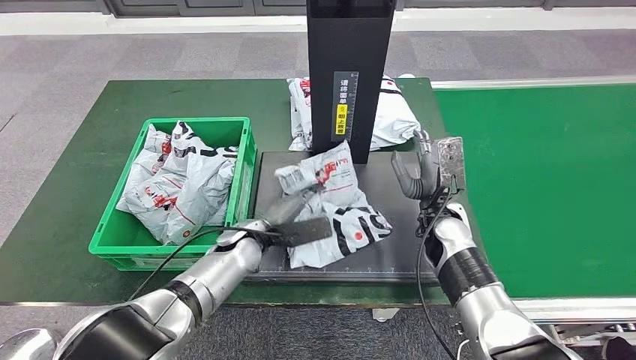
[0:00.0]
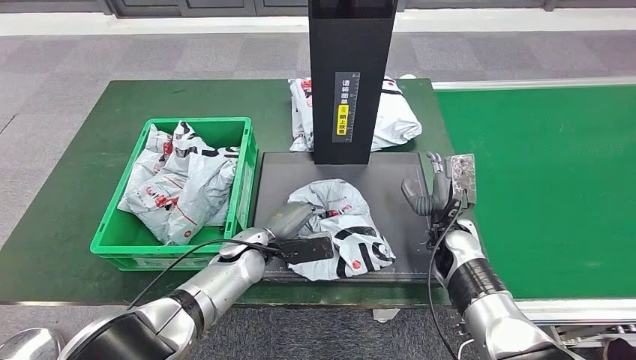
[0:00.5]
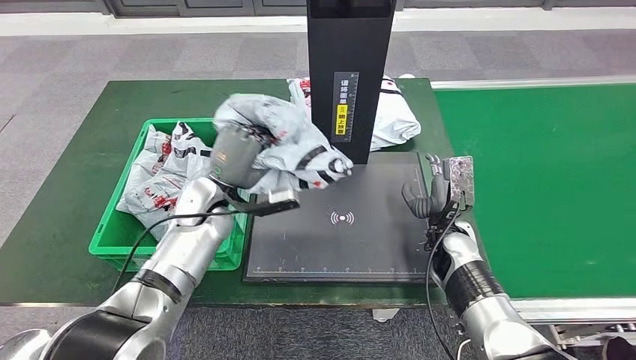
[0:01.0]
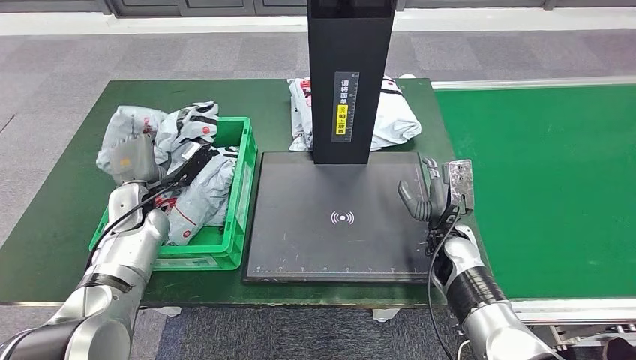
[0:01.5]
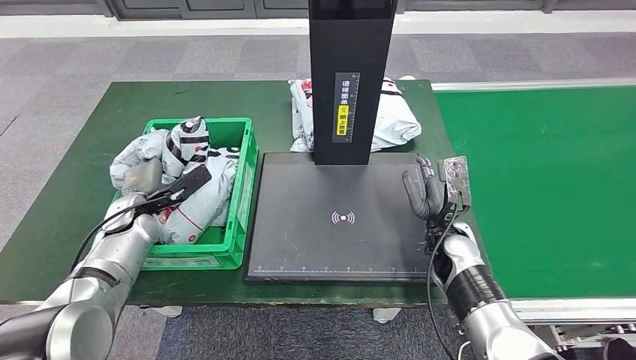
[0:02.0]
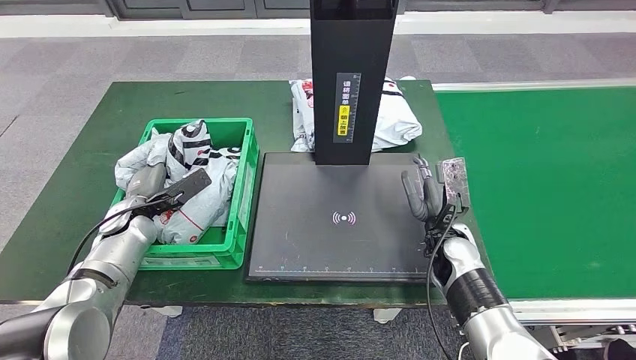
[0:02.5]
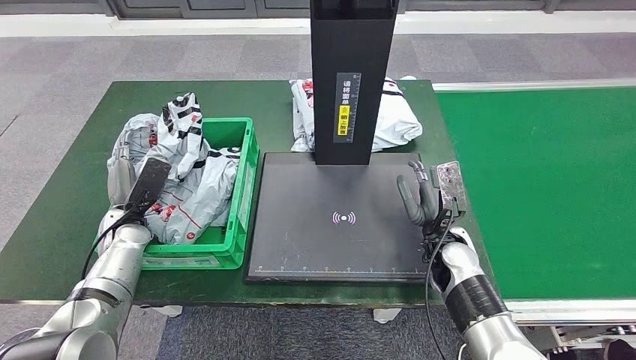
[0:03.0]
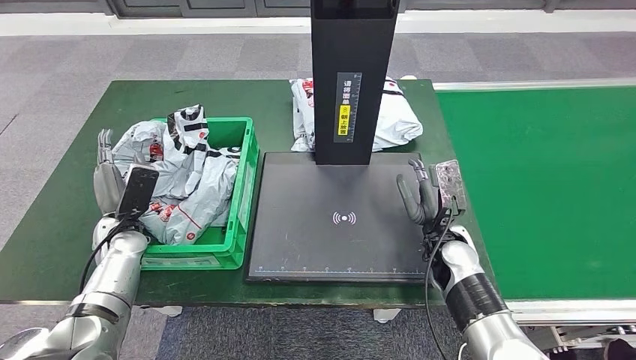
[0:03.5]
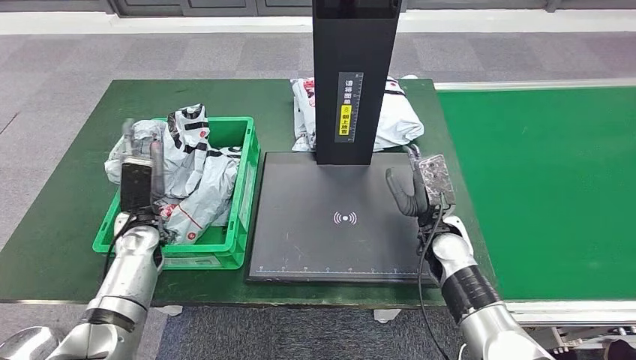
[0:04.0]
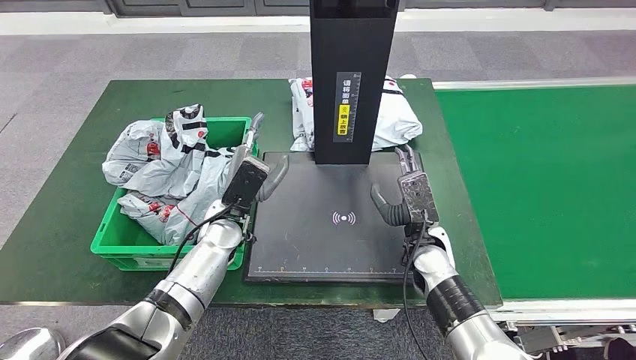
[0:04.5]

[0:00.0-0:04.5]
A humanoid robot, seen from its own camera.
Step, 0:00.0 to 0:01.5: Pick up the parcel from the inbound machine.
Step, 0:02.0 to 0:04.5: Place the parcel into the delivery box.

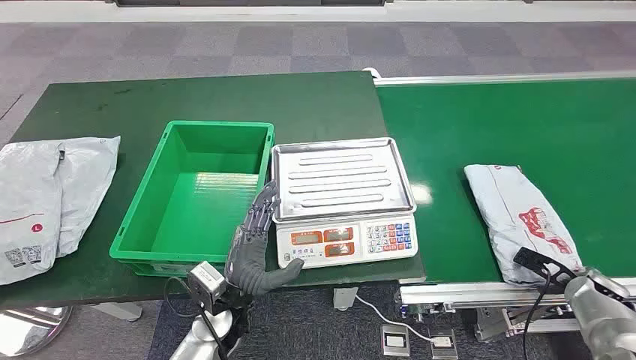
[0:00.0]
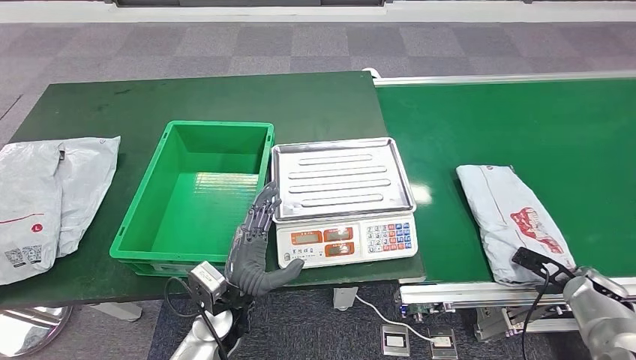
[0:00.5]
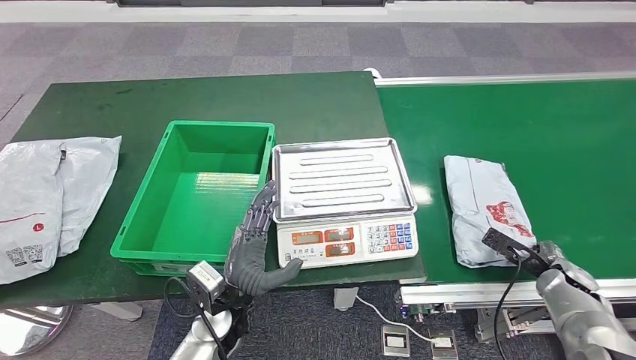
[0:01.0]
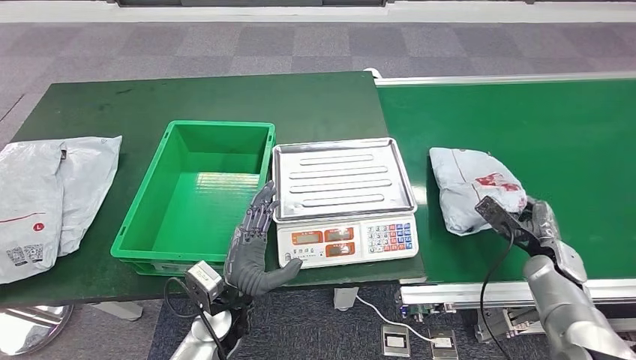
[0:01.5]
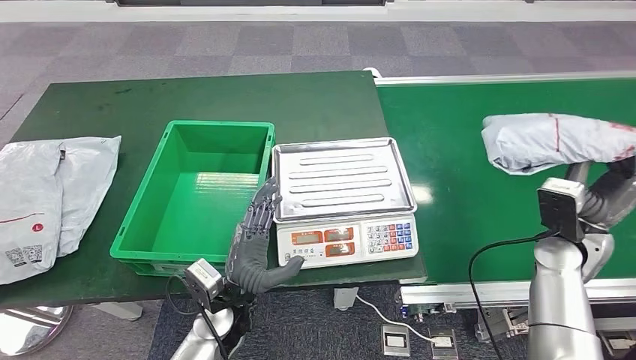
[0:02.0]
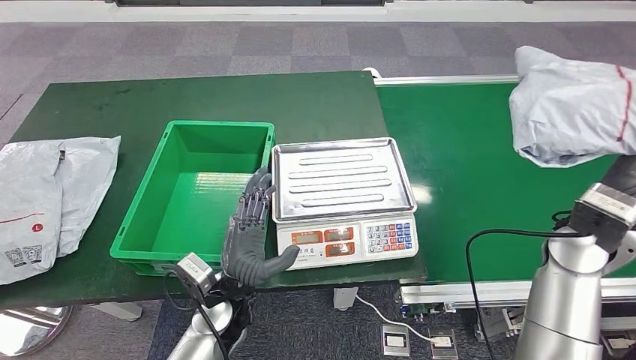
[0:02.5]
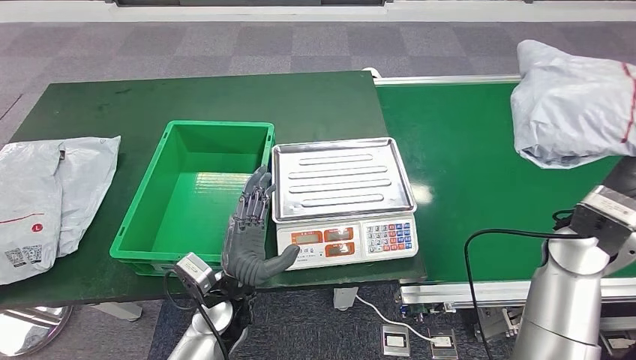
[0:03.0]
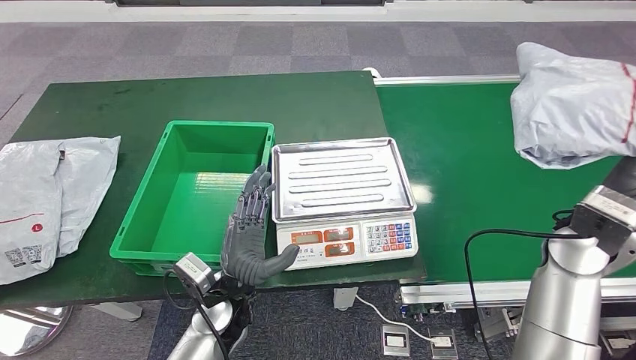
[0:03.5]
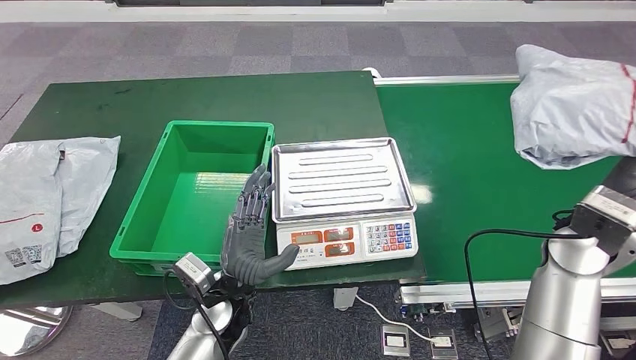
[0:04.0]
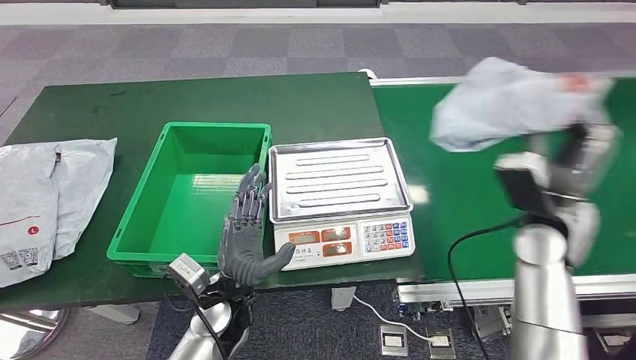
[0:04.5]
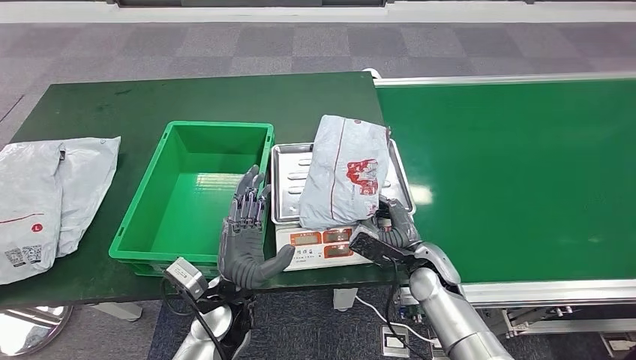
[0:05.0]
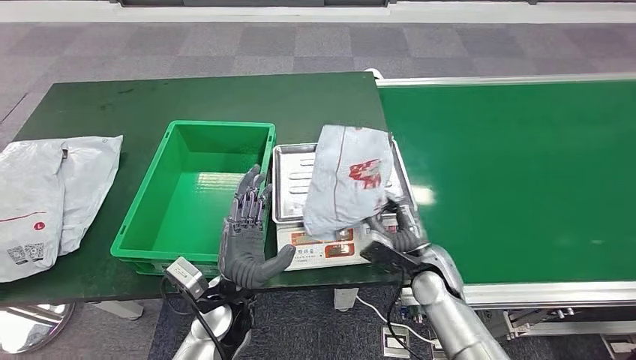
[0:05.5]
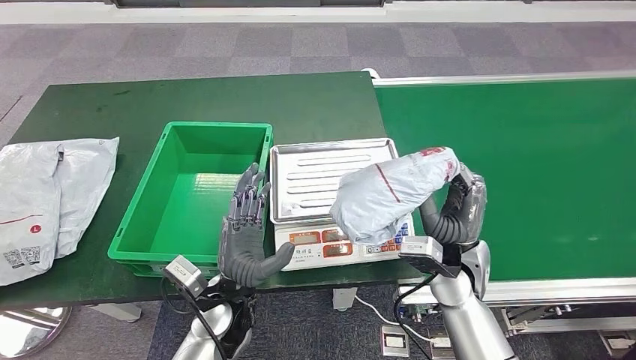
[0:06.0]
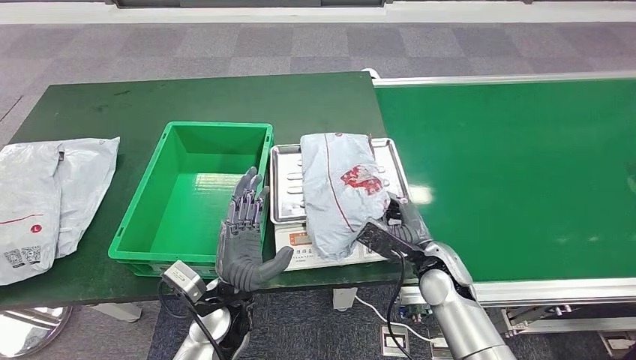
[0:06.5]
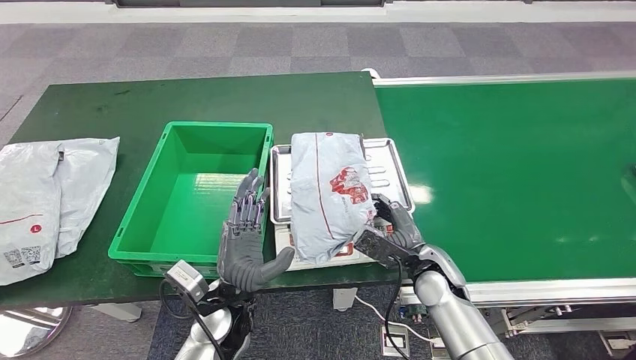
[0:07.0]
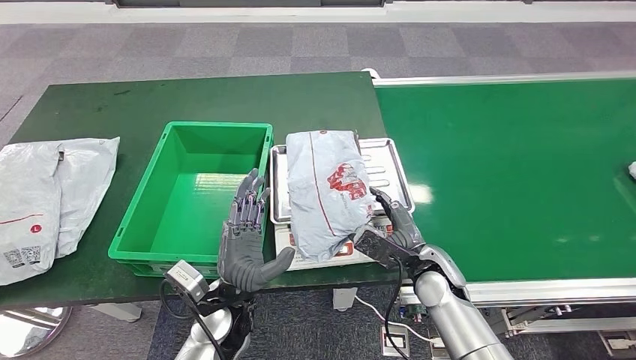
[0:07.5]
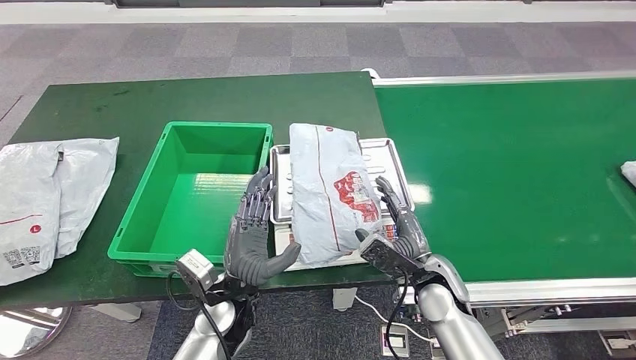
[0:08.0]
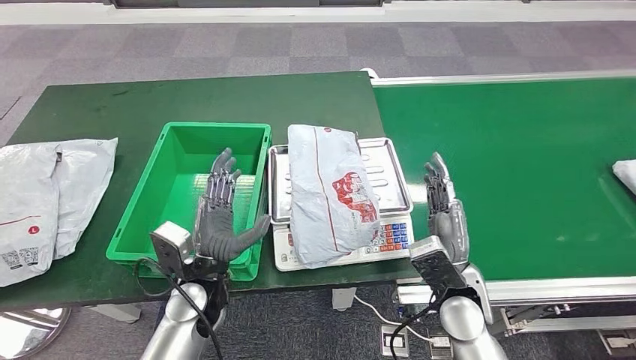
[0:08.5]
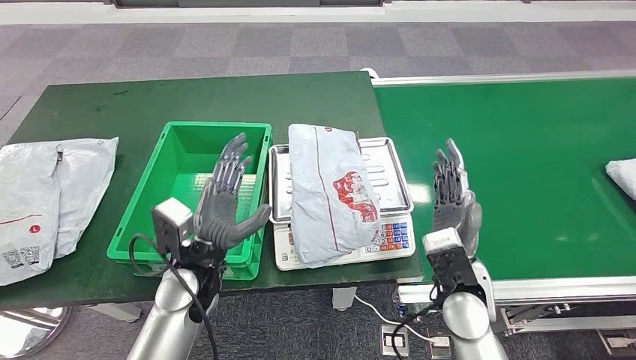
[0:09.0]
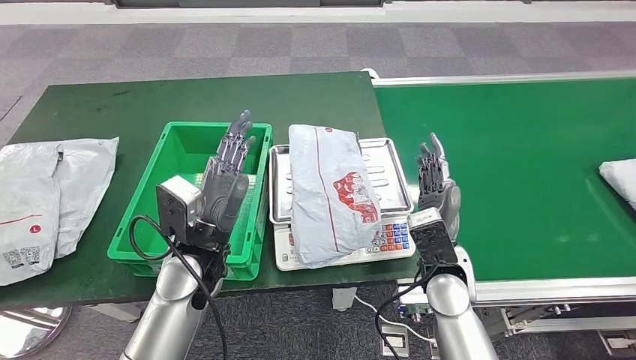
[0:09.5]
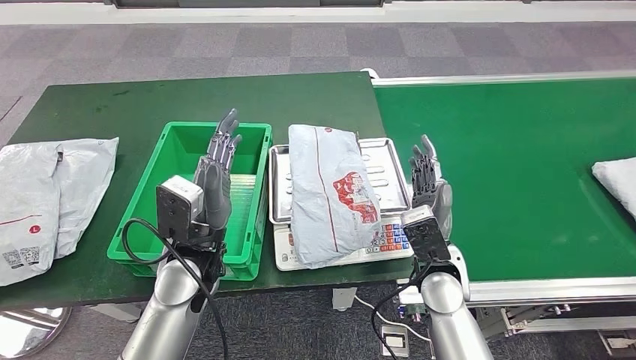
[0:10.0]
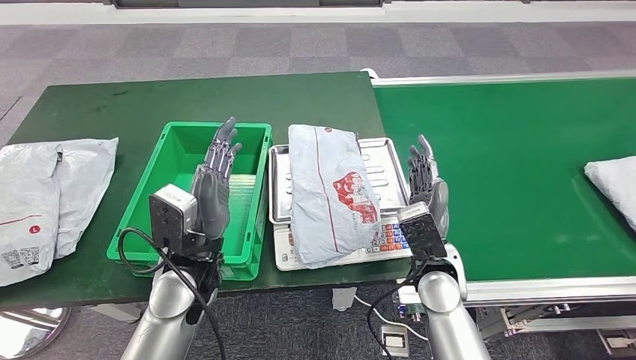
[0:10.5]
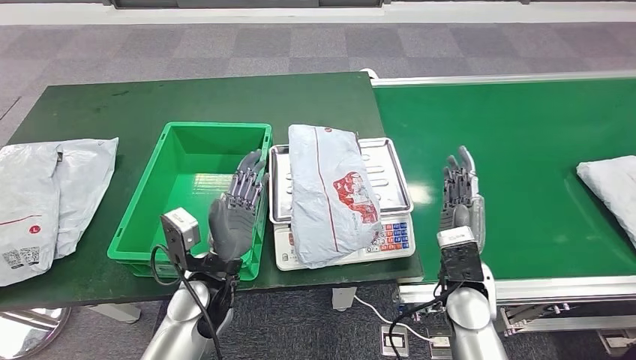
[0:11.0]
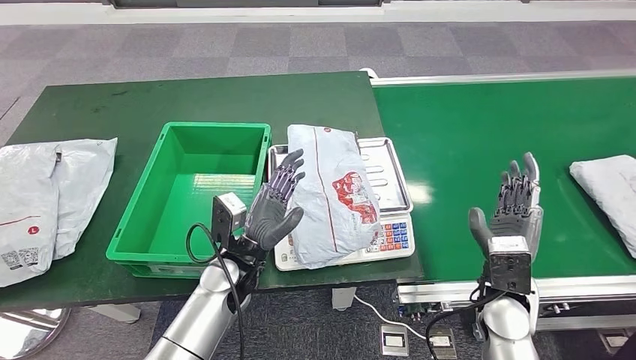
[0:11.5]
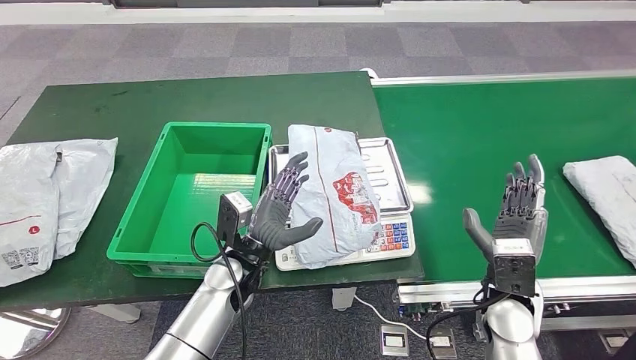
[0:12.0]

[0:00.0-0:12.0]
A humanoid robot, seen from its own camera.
Step, 0:00.0 to 0:02.0: Take the parcel off the conveyor belt.
Step, 0:02.5 to 0:06.5: Place the parcel onto the inbound machine.
0:02.0 to 0:04.0: The right hand travels upward by about 10 cm.
0:06.0 to 0:08.0: The right hand is displaced downward by some 5 cm.
0:08.0 to 0:10.0: The left hand goes about 10 cm upward, while the right hand shifts roughly 5 cm upward.

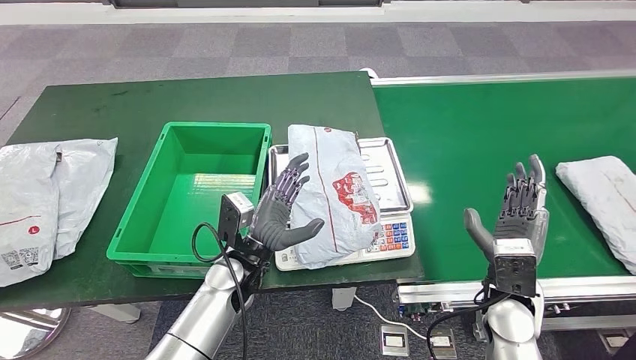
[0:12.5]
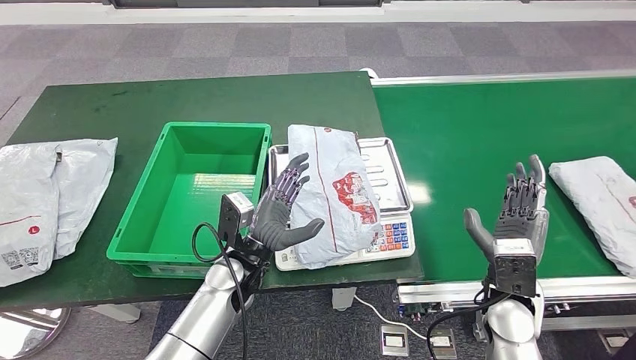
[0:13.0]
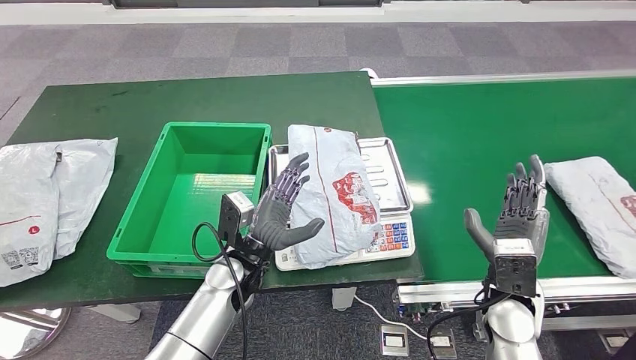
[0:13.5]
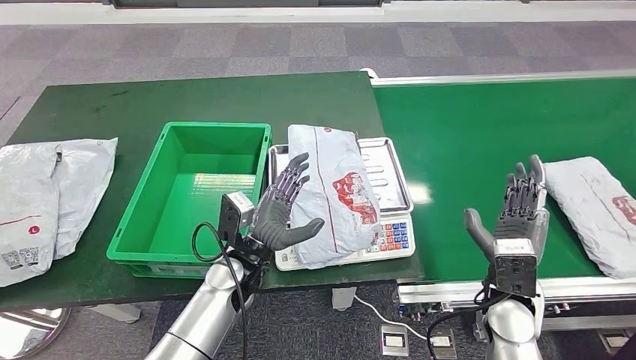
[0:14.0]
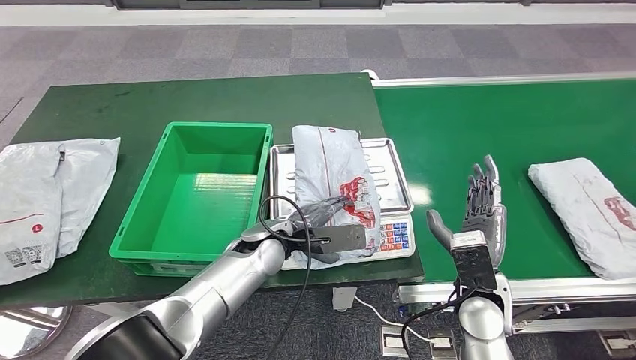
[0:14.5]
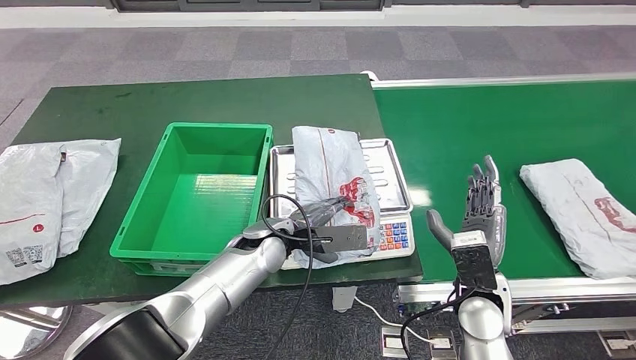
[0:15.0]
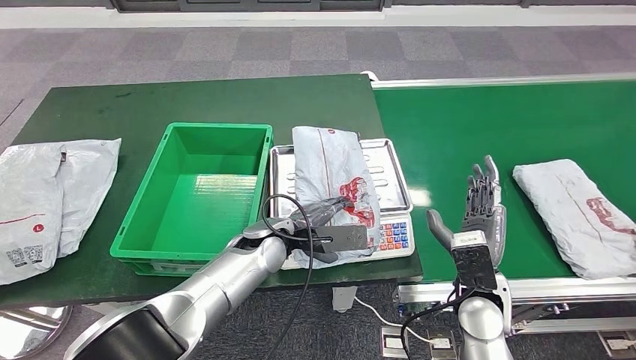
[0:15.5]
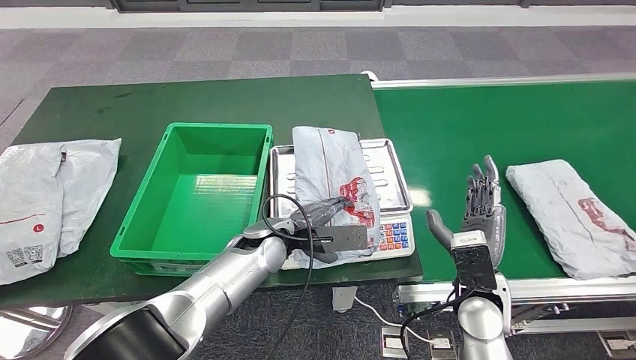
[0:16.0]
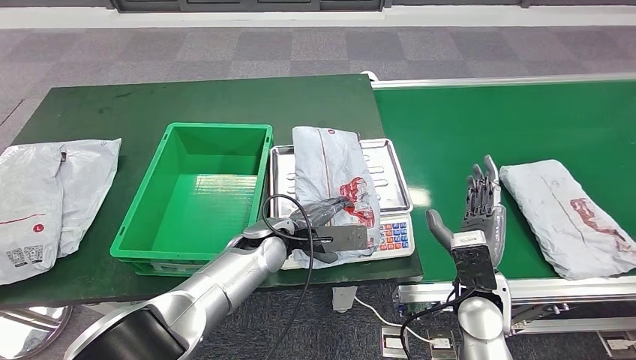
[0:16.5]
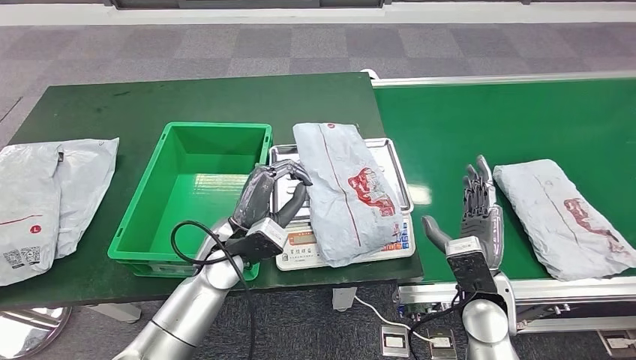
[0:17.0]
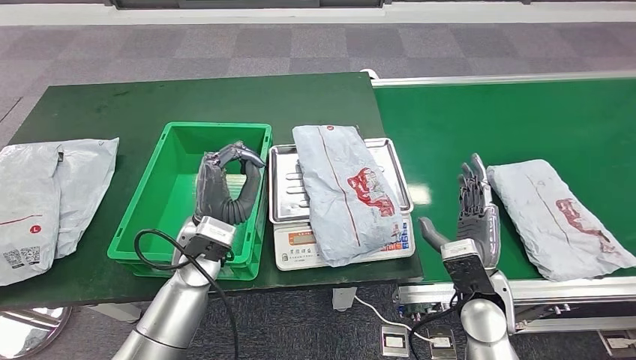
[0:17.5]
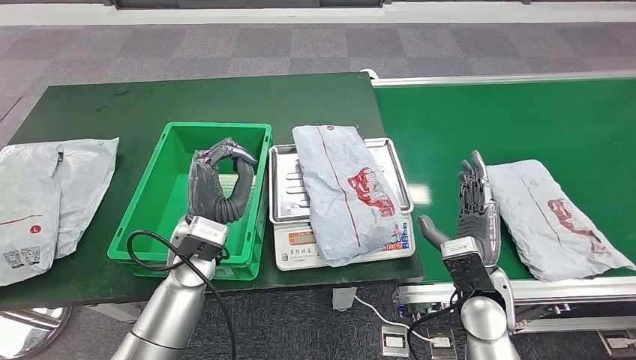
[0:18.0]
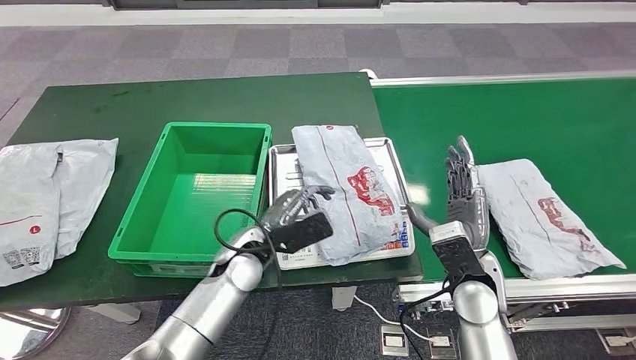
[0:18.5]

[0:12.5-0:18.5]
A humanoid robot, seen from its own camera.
0:14.5 to 0:16.5: Both hands stay about where they are.
